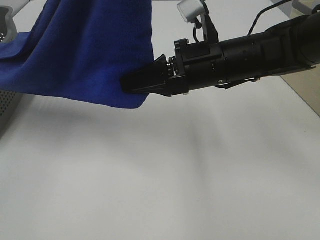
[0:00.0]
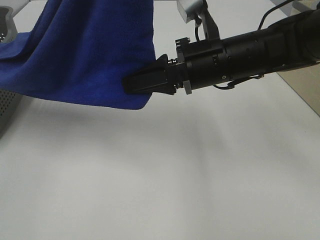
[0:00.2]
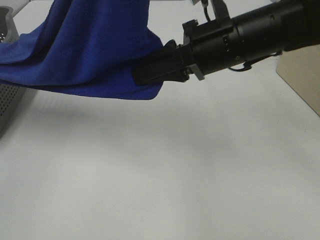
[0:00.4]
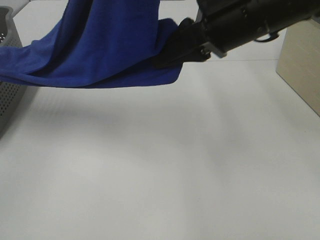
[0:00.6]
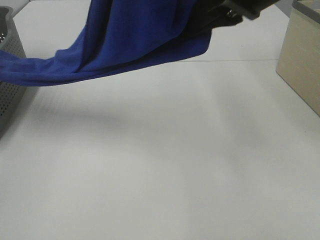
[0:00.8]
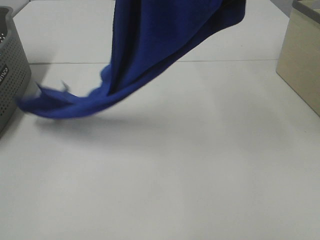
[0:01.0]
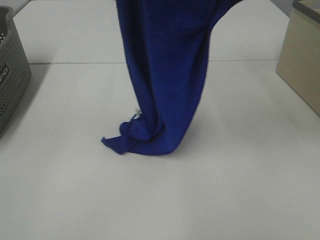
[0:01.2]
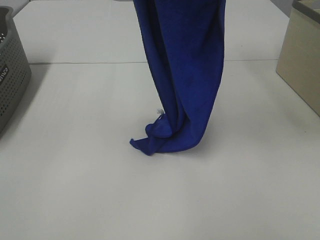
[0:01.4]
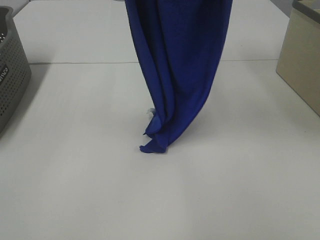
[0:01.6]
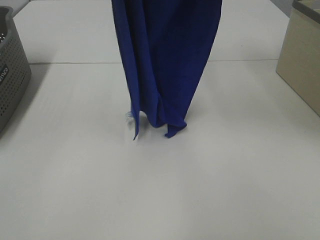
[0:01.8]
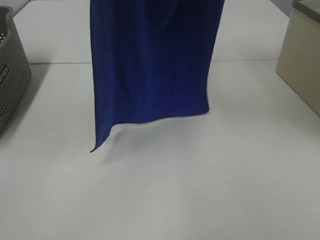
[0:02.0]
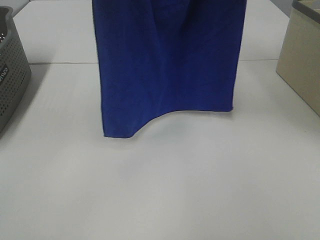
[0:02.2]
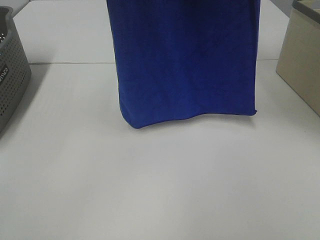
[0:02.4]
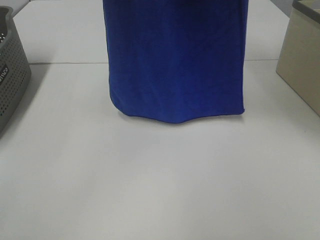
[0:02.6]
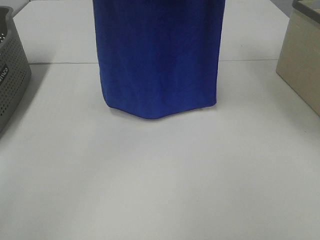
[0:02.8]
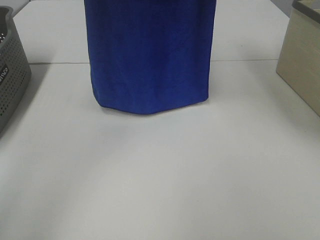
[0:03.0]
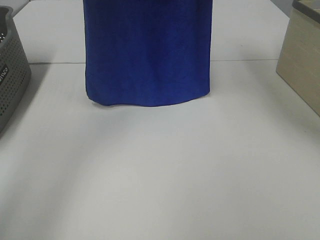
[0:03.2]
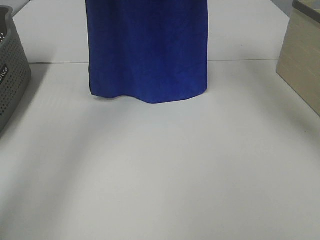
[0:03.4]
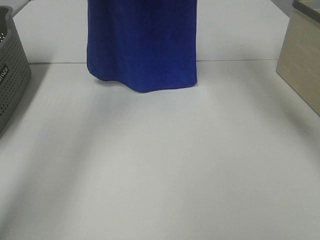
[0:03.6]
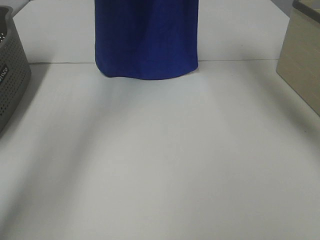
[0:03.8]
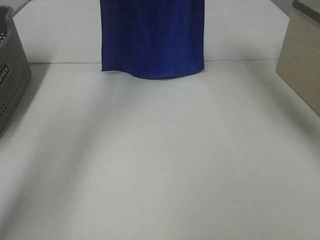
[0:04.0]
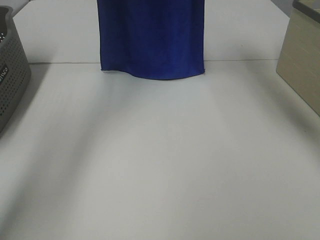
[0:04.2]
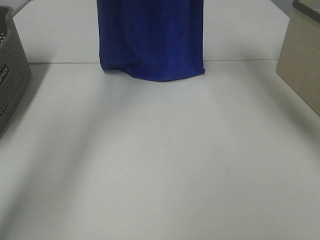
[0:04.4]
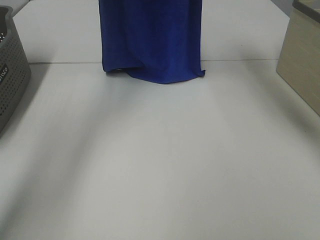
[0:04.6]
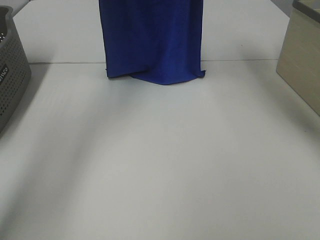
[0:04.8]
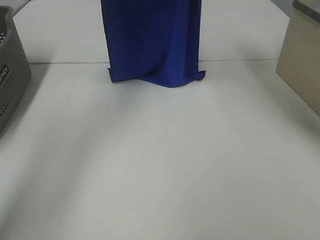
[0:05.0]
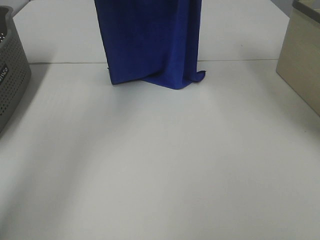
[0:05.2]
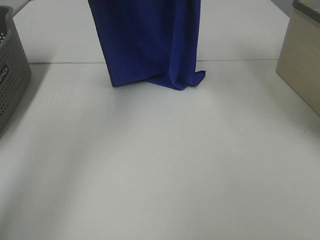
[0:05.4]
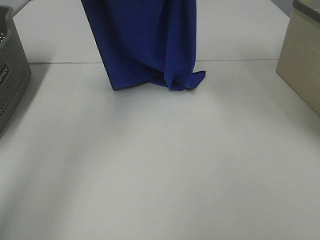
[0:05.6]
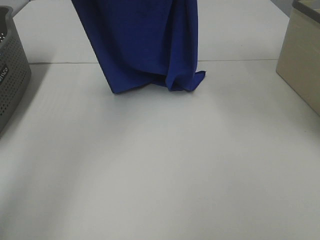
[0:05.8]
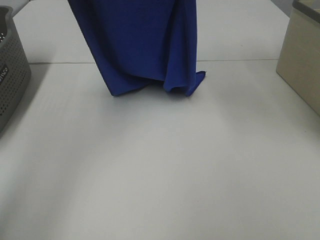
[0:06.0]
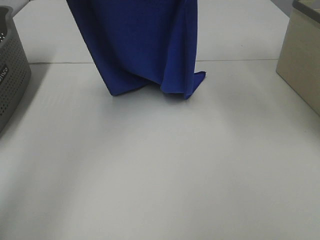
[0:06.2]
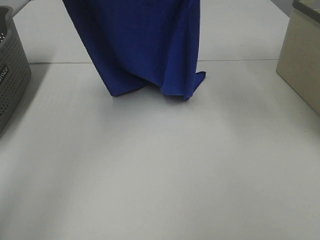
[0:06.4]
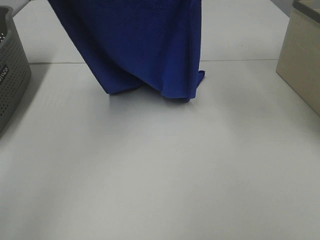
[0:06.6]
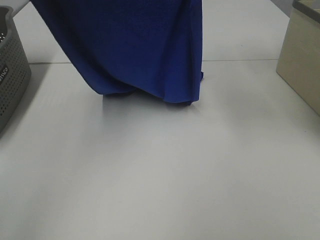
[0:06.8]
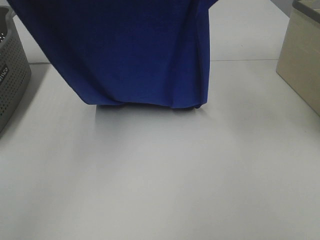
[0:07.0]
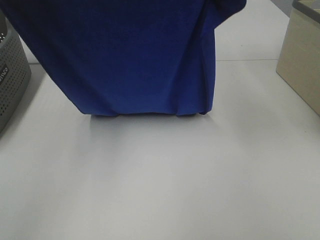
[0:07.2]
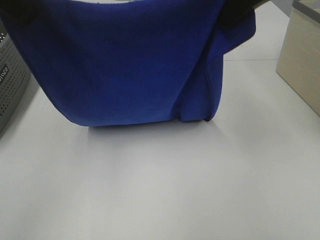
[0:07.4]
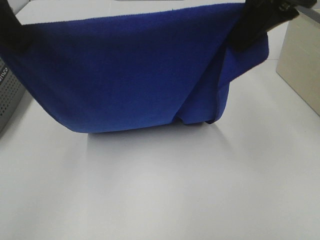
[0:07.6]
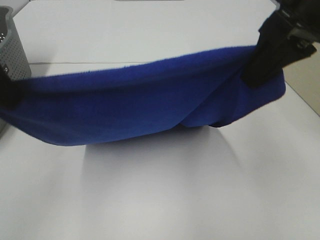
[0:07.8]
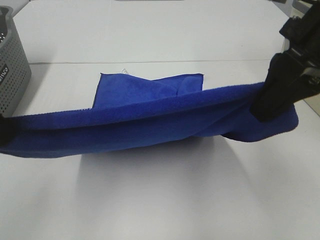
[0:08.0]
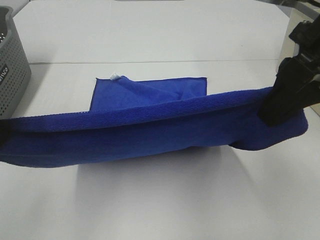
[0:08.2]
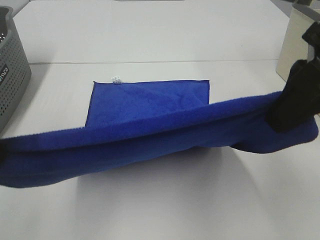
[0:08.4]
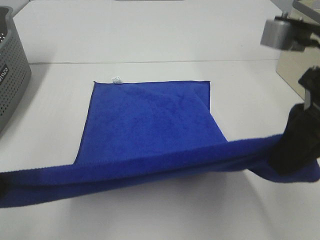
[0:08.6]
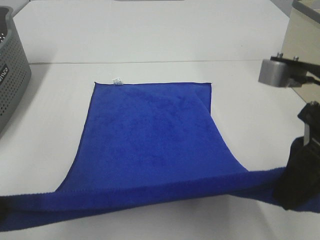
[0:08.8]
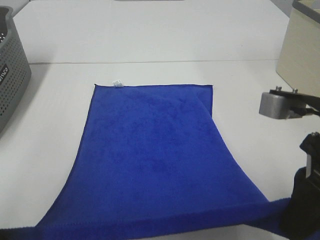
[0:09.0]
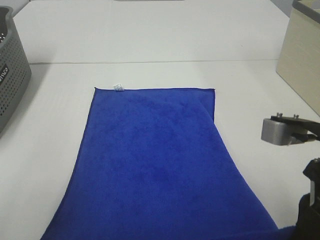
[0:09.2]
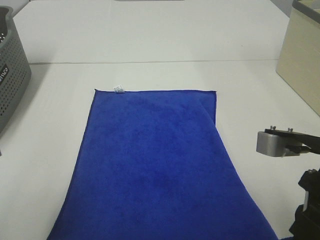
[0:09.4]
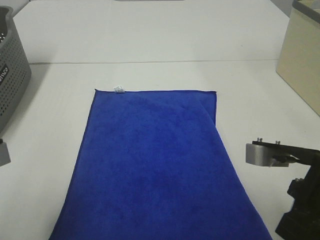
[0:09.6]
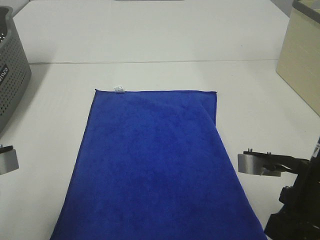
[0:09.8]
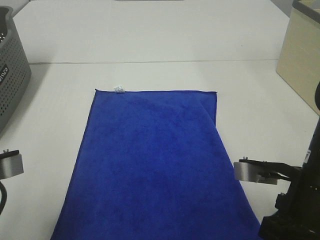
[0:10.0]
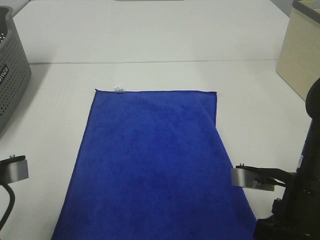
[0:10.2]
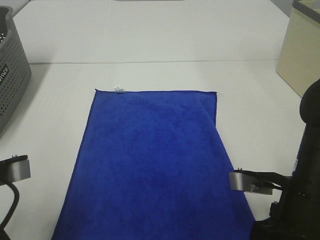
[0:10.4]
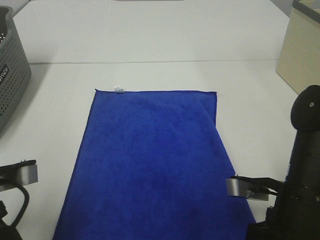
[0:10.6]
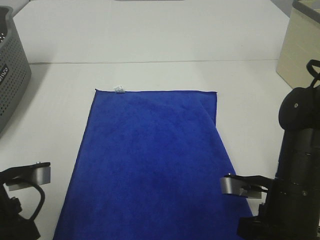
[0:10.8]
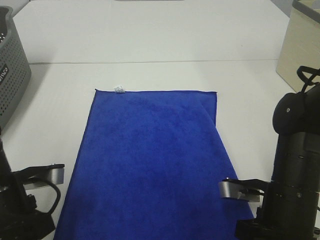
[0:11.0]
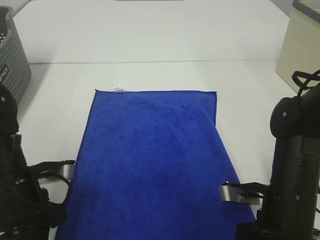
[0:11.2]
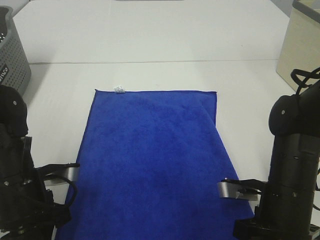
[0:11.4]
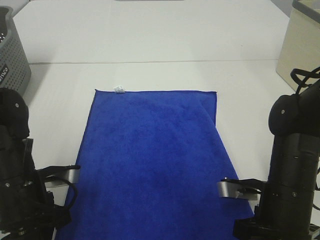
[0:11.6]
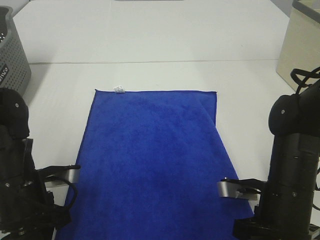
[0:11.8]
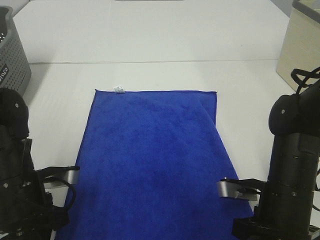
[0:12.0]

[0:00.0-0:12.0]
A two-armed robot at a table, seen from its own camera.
Task of the whole recording: Remove the towel and place it.
Step, 0:00.0 to 0:08.2: Left hand: spread the blue towel flat on the table.
Step, 0:00.0 to 0:08.2: Right hand: spread the blue towel flat on the table.
0:00.0 to 0:01.6: The right gripper heads upward, covering about 25 cm; the left gripper changes place by approximately 5 cm.
0:01.6 to 0:03.0: The grippers both shift forward by approximately 10 cm.
0:03.0 to 0:04.4: The two grippers go approximately 10 cm forward.
0:04.4 to 0:06.0: Both grippers travel together backward, approximately 10 cm.
0:06.0 to 0:07.6: The two grippers go some 15 cm backward and downward.
0:07.6 to 0:09.0: The two grippers go some 20 cm backward and downward.
0:09.0 to 0:10.4: The left gripper is displaced downward by some 5 cm. The right gripper moves downward, roughly 10 cm.
0:10.4 to 0:12.0: The right gripper changes place by roughly 5 cm; the left gripper is displaced downward and forward by approximately 10 cm.

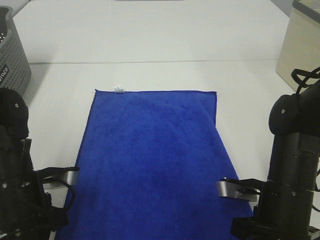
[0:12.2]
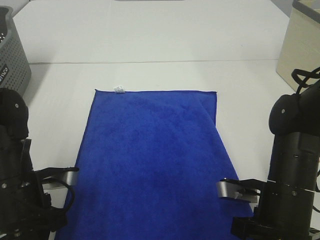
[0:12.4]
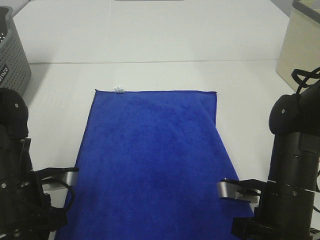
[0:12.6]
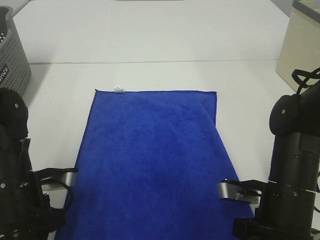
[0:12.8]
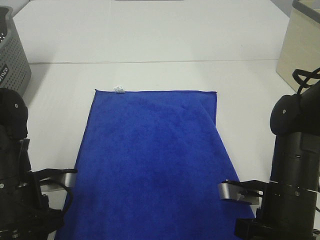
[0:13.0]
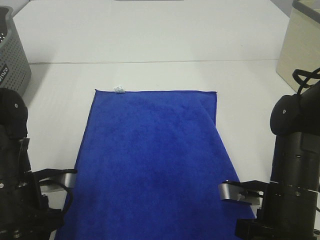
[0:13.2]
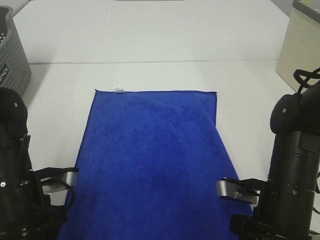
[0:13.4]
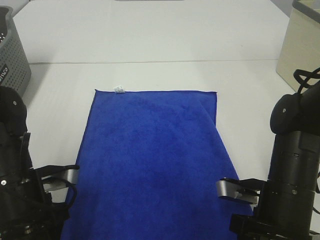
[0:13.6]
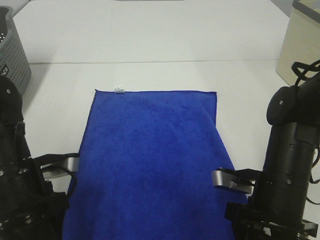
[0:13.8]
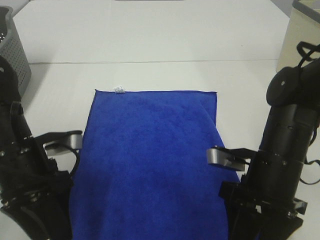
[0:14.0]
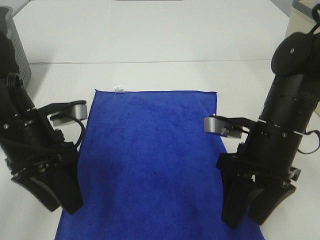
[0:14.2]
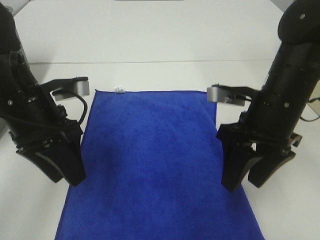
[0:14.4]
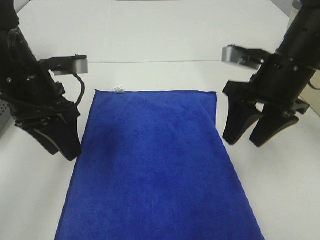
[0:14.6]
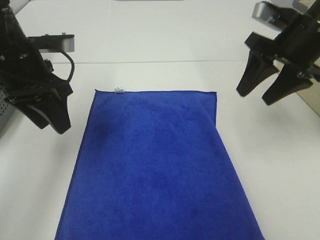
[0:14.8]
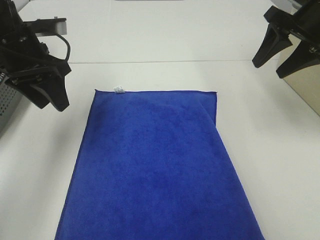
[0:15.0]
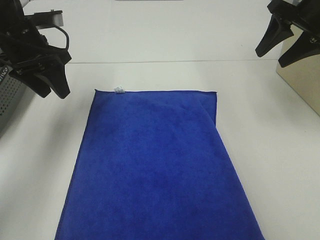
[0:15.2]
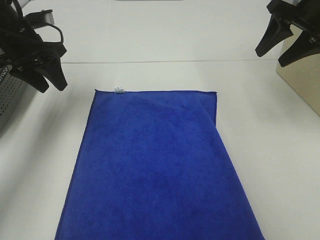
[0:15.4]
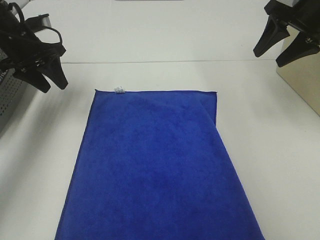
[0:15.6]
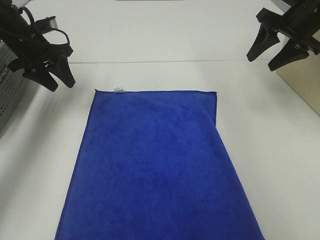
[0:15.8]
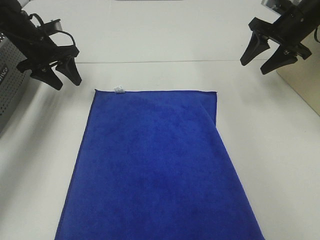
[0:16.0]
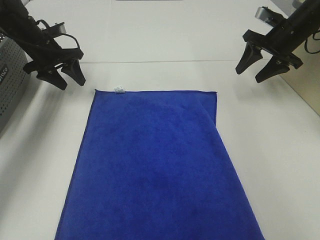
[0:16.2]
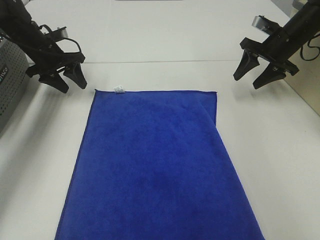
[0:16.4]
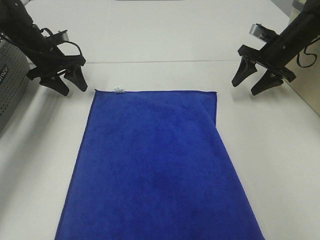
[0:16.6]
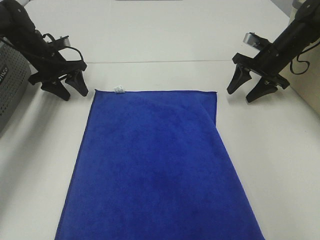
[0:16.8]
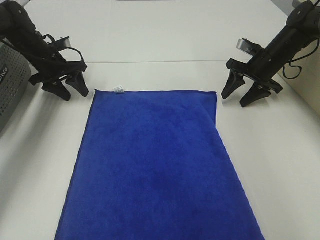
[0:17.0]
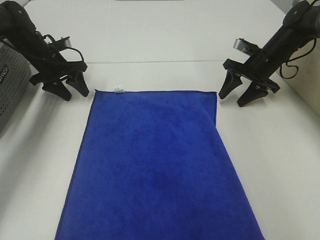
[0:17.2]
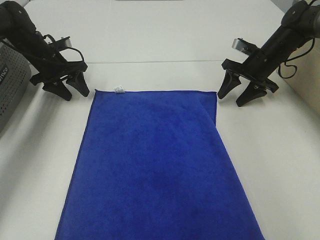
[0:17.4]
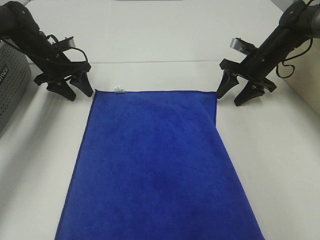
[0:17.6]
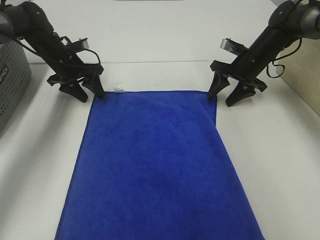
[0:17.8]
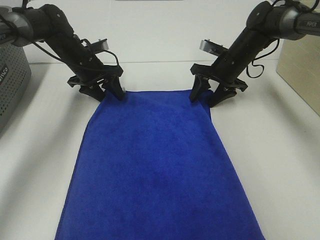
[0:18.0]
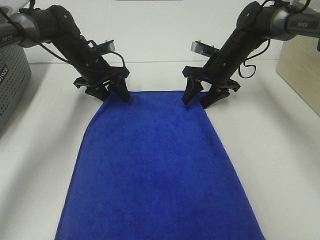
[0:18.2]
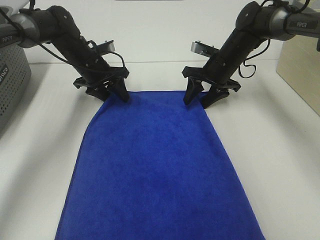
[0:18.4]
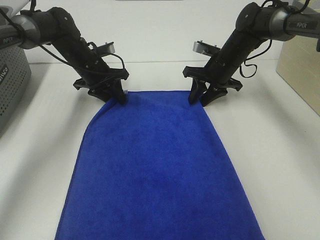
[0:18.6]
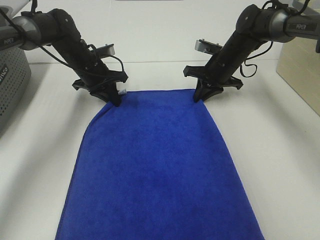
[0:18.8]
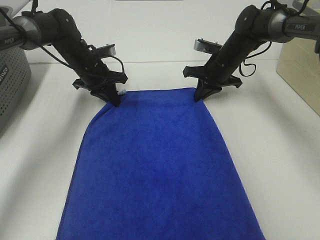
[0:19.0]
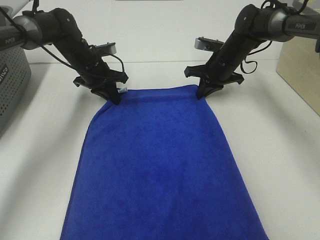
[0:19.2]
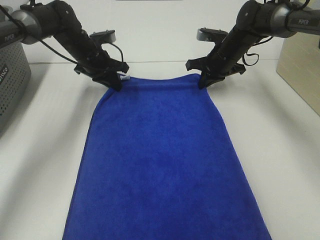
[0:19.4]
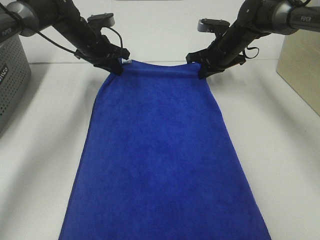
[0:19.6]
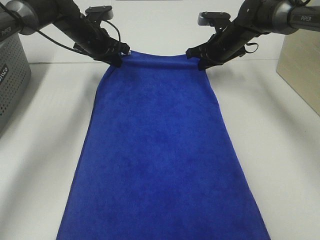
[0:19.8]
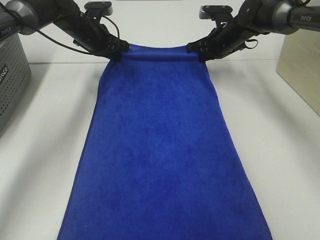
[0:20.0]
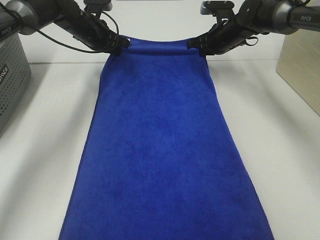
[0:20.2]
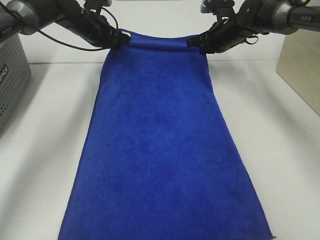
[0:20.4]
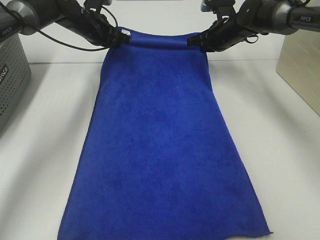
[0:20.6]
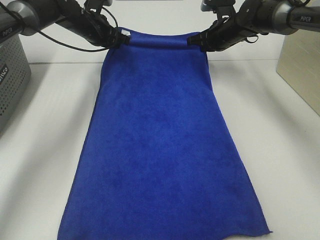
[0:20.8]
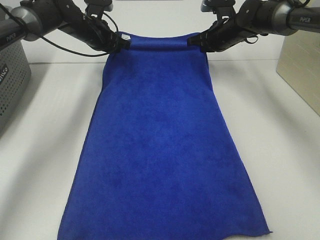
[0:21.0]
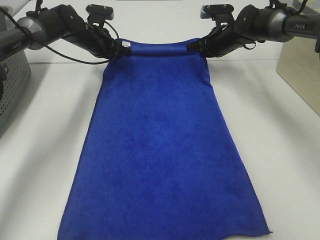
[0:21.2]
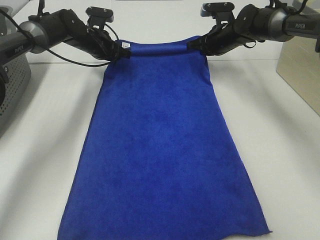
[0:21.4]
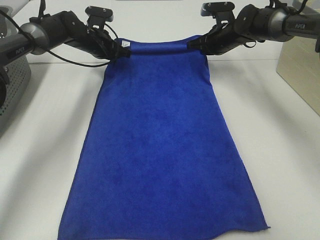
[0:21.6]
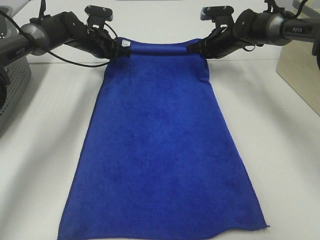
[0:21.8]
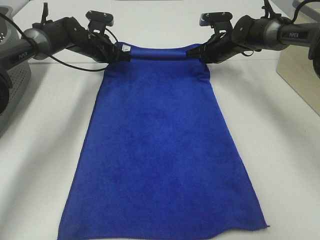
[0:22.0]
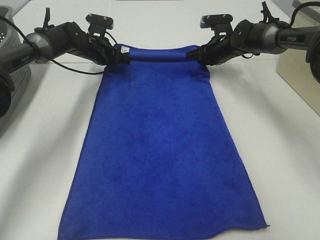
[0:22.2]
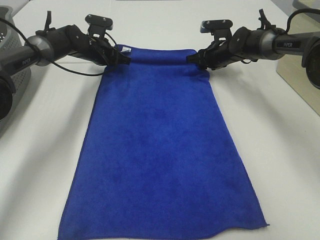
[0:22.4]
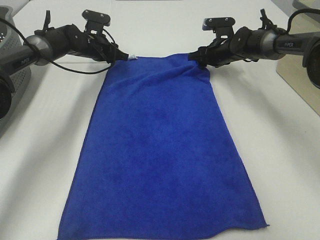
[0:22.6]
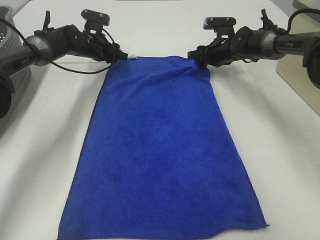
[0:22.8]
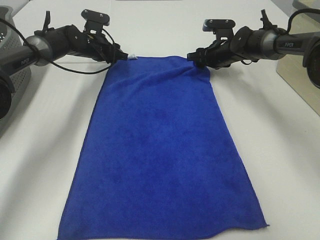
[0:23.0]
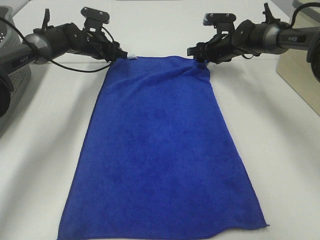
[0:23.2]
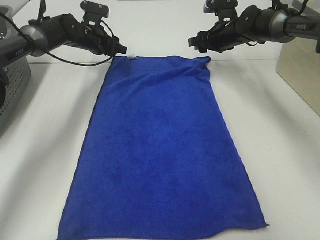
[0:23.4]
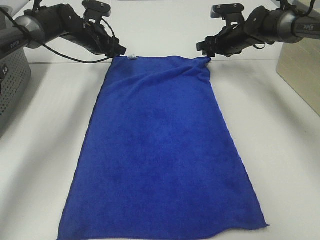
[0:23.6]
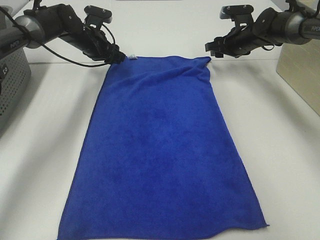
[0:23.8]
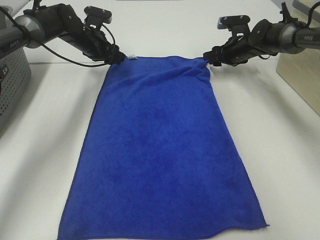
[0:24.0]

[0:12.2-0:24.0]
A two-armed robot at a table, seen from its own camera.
Task of the whole recording: Remove the towel and place it.
Step, 0:12.2 to 0:16.2: Left hand:adjust the blue towel.
Step, 0:12.2 to 0:16.2: Right hand:adjust the blue towel.
0:12.2 to 0:13.6: The left gripper opens its fingers. Meanwhile the right gripper opens its fingers.
0:13.6 to 0:15.2: The right gripper travels forward, upward and to the right by roughly 30 cm. Meanwhile the left gripper shifts roughly 25 cm forward and upward.
0:15.2 to 0:16.6: The left gripper travels forward and downward by roughly 15 cm, while the right gripper shifts roughly 15 cm downward and forward.
0:16.6 to 0:18.2: The right gripper is displaced to the left by approximately 15 cm. Meanwhile the left gripper travels to the right by roughly 10 cm.
0:18.2 to 0:19.6: The left gripper shifts by roughly 5 cm, and closes its fingers. Meanwhile the right gripper closes up.
0:21.0 to 0:22.6: The grippers both shift downward by roughly 5 cm. The right gripper opens its fingers, while the left gripper opens up.
0:22.6 to 0:24.0: The grippers move only a little.
